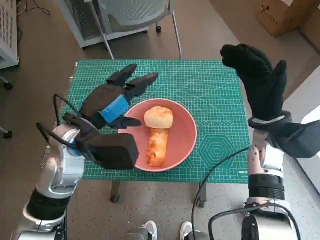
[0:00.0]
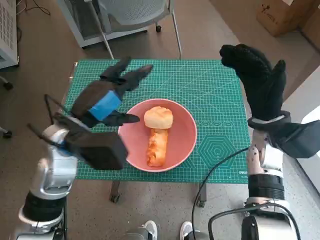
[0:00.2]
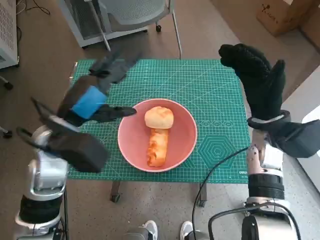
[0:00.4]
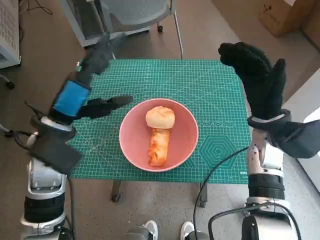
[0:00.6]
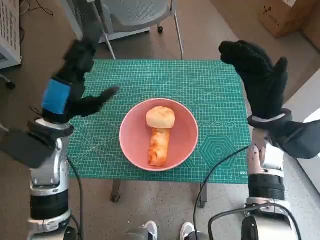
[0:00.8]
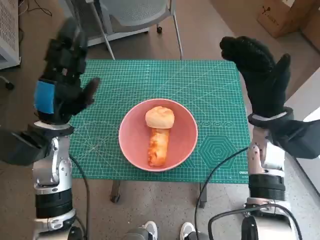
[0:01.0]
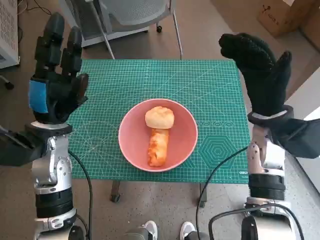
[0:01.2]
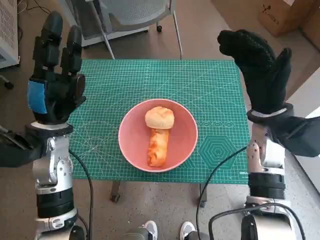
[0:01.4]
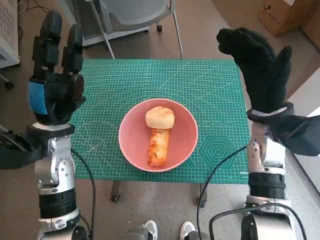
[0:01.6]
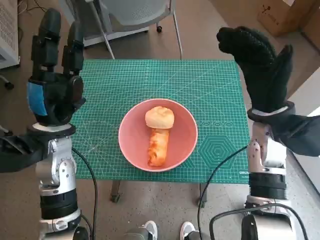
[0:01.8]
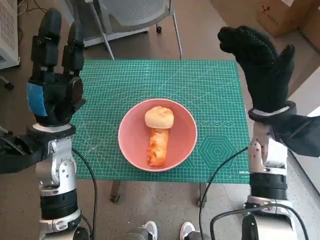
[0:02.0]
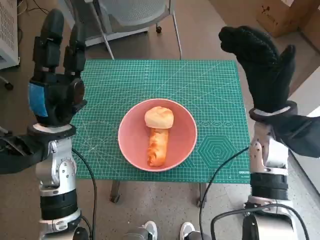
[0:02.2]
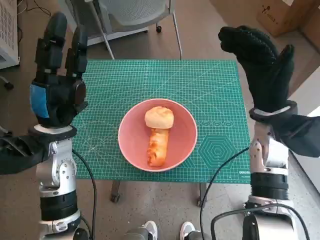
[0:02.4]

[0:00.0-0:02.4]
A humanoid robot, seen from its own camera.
0:00.0 to 0:01.2: The left hand travels to the left by roughly 5 cm.
0:01.2 to 0:02.4: The hands move only a little.

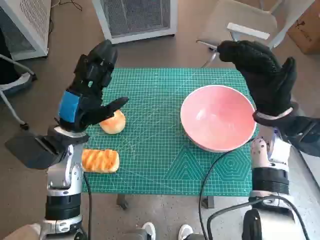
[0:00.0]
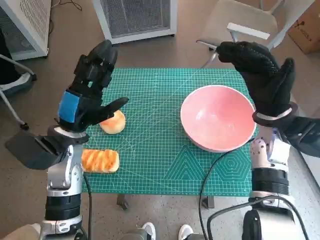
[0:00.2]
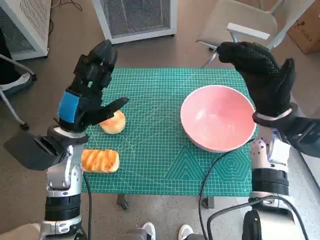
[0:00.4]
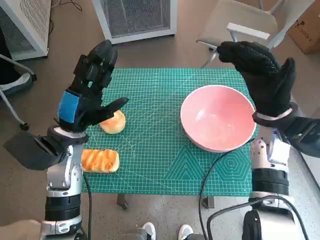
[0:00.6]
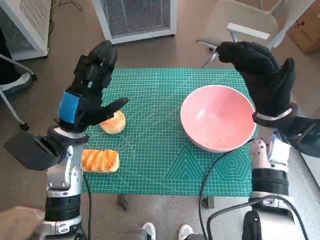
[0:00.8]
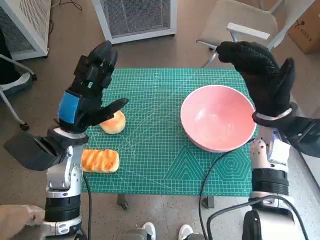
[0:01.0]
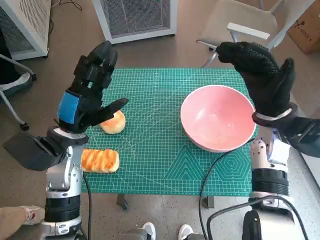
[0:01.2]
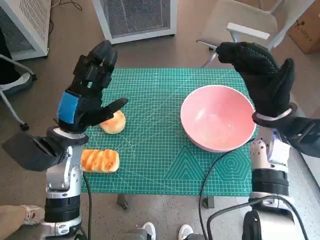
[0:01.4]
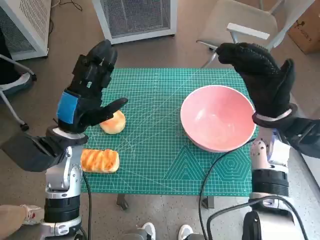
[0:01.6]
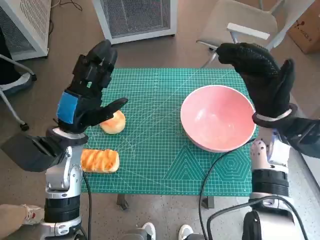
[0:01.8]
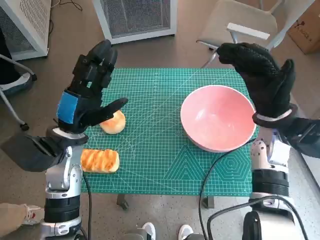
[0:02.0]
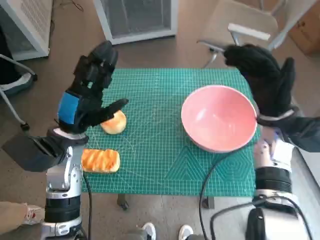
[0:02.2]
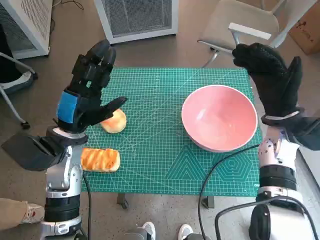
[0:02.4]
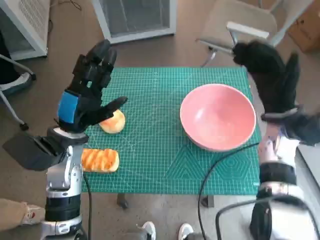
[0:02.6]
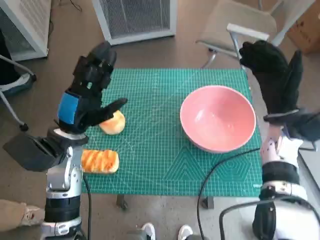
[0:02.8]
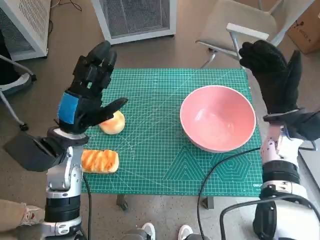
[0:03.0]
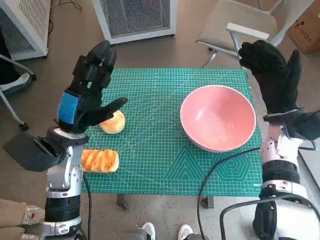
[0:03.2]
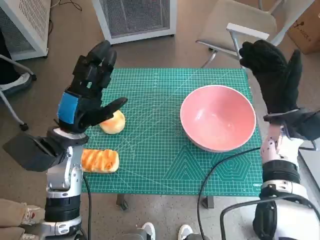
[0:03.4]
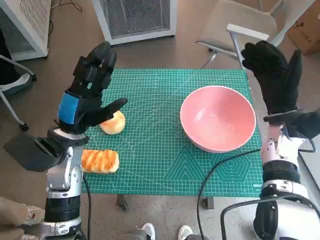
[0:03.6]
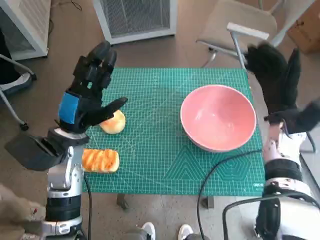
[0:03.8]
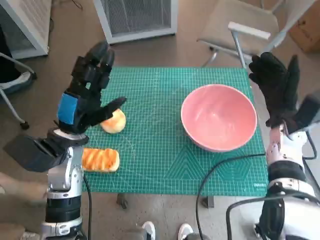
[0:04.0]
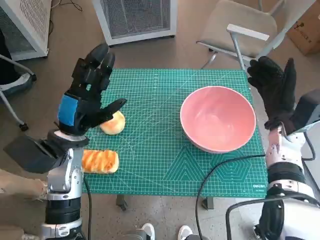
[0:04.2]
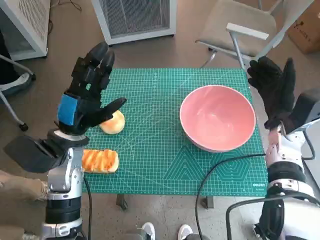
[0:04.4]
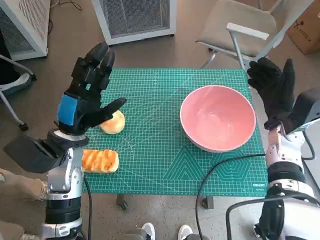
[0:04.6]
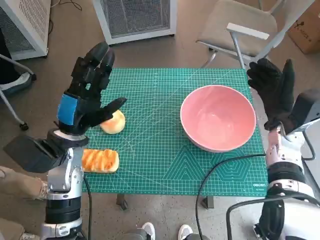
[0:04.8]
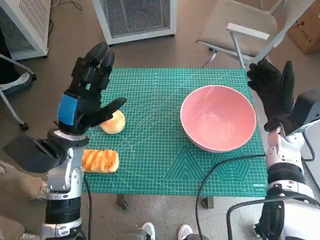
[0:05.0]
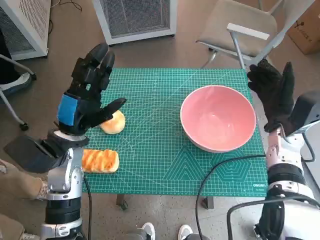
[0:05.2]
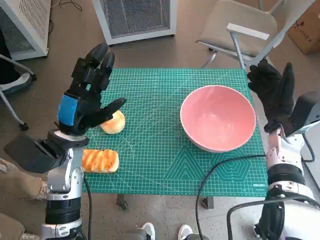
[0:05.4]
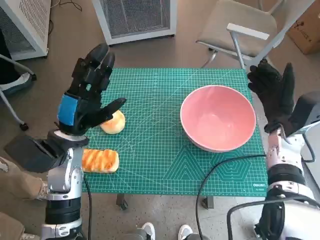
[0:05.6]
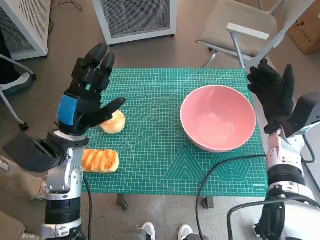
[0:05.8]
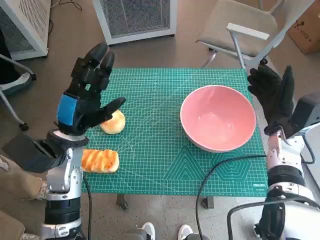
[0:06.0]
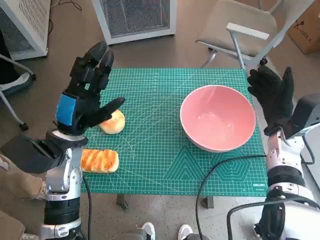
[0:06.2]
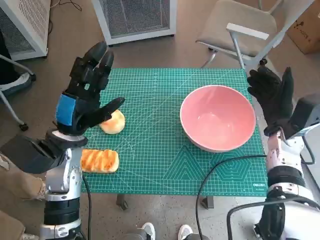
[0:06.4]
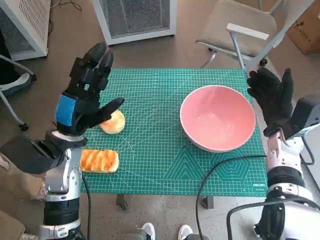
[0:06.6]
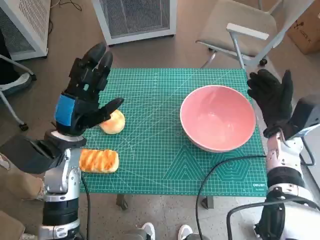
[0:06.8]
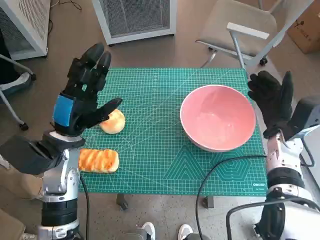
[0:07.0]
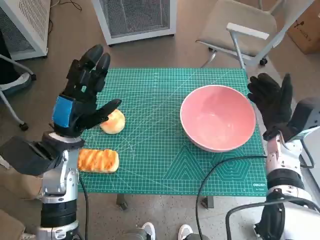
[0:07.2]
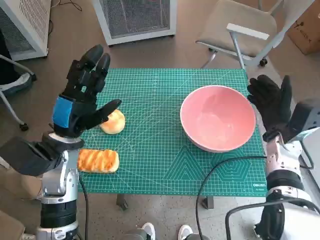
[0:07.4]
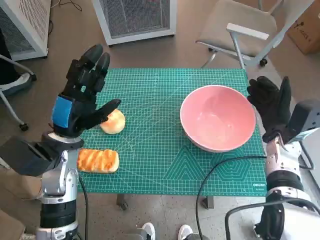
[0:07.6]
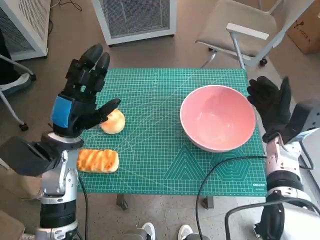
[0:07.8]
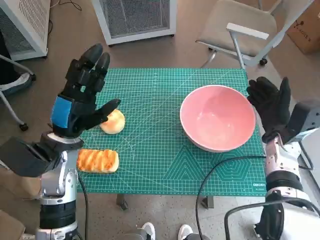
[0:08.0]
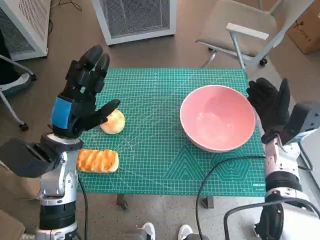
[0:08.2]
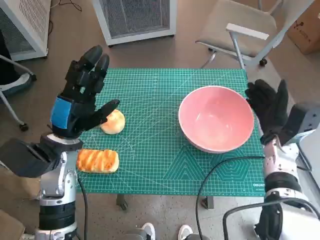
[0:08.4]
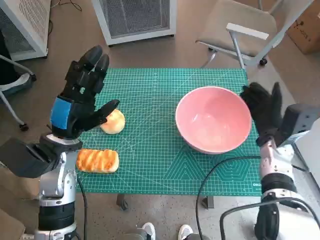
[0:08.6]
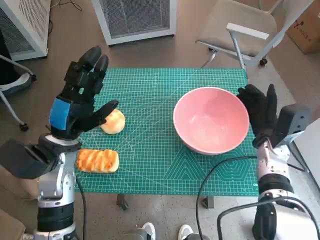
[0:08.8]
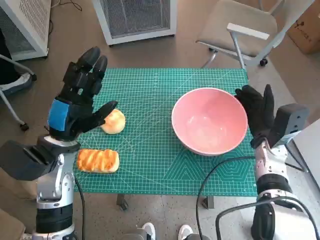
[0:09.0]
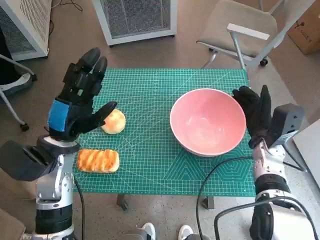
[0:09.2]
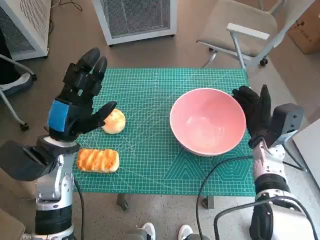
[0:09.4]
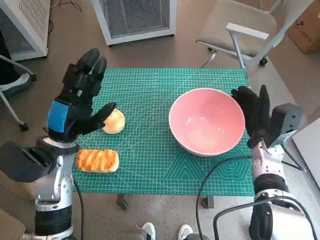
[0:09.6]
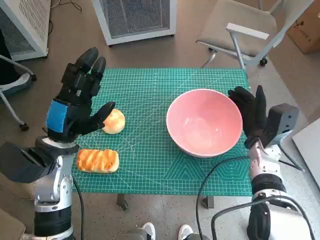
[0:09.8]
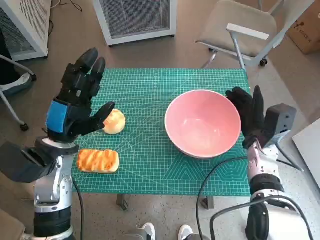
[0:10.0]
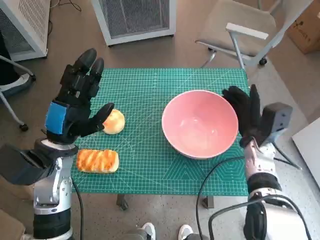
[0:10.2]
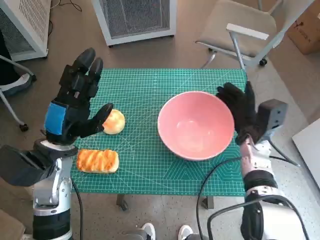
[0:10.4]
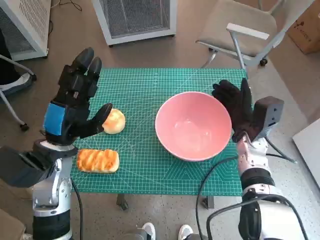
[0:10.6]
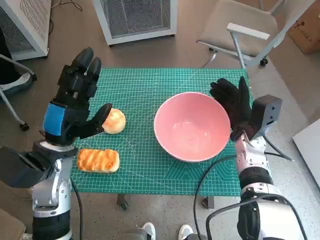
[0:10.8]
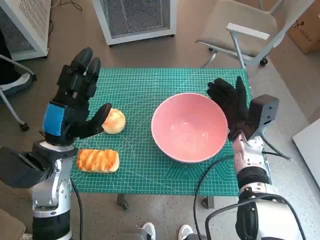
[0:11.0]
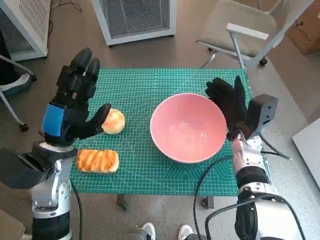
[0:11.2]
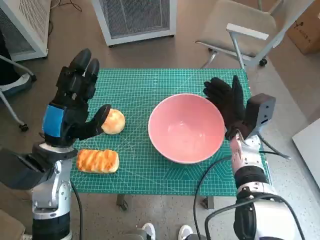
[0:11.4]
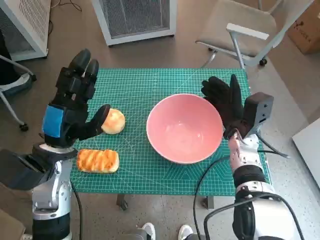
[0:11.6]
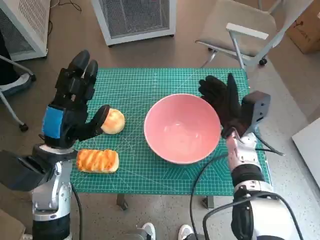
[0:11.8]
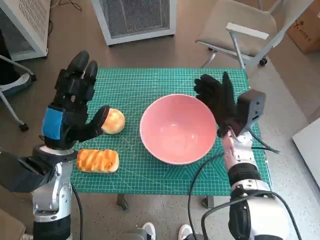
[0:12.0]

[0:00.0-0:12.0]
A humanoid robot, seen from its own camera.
0:04.4 to 0:06.0: Both hands stay about where they are.
0:06.0 to 0:10.4: The hands move only a little.

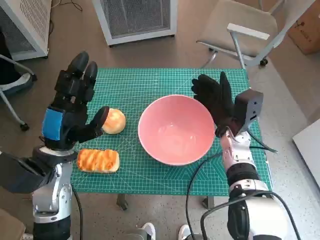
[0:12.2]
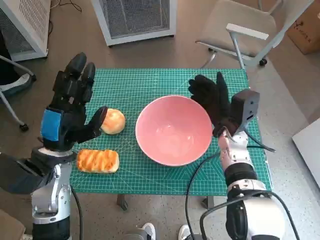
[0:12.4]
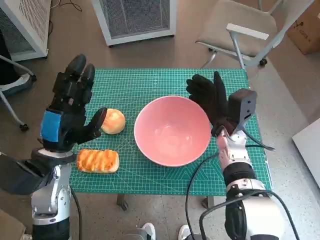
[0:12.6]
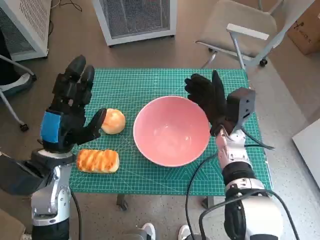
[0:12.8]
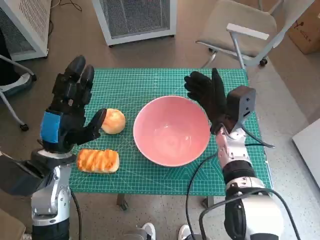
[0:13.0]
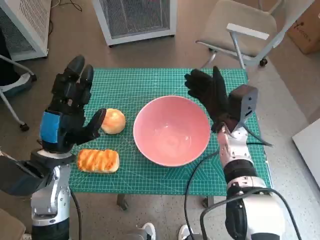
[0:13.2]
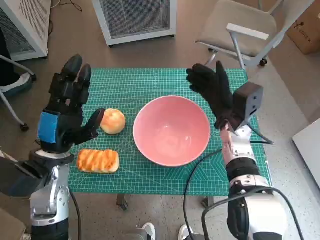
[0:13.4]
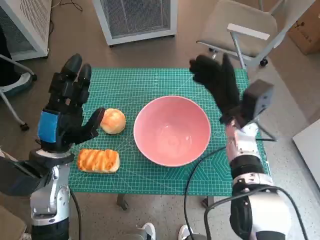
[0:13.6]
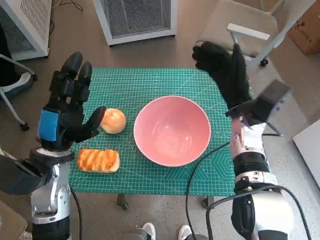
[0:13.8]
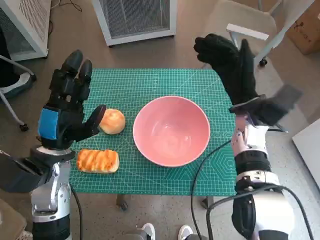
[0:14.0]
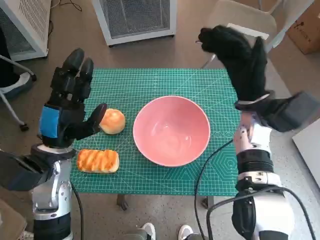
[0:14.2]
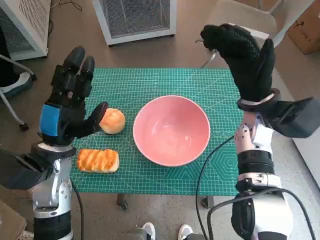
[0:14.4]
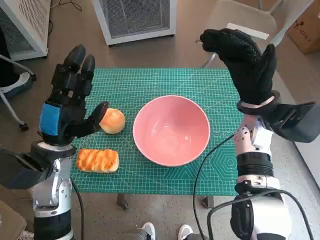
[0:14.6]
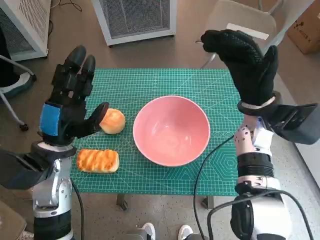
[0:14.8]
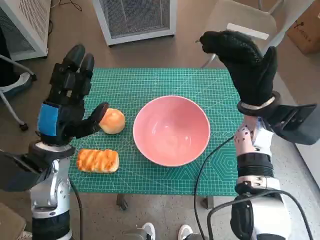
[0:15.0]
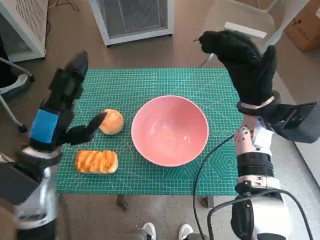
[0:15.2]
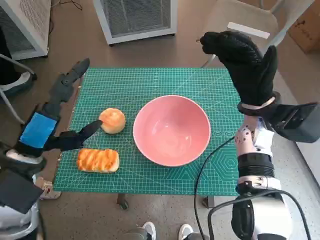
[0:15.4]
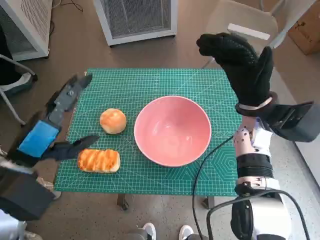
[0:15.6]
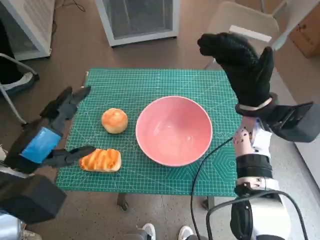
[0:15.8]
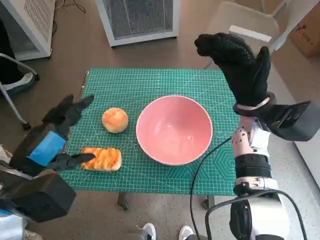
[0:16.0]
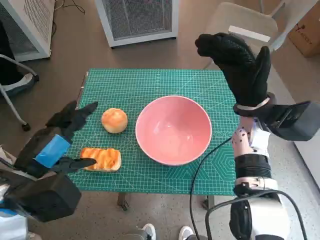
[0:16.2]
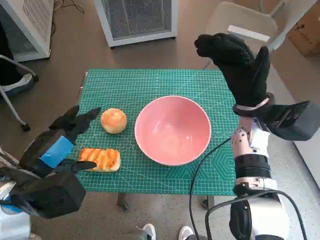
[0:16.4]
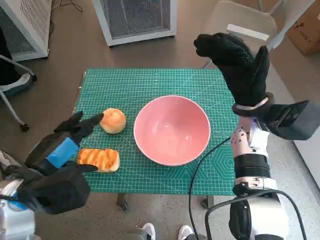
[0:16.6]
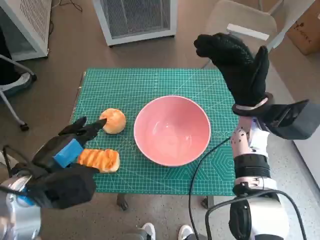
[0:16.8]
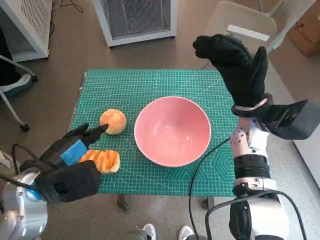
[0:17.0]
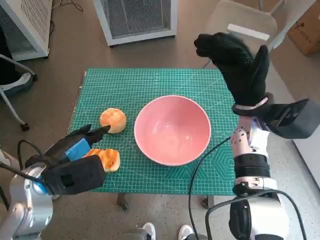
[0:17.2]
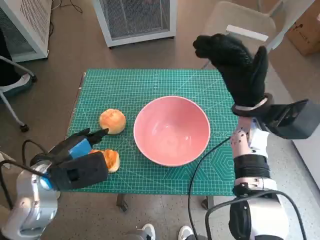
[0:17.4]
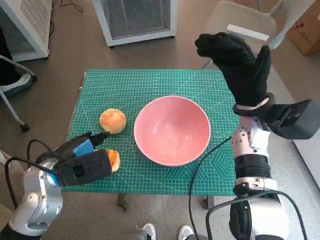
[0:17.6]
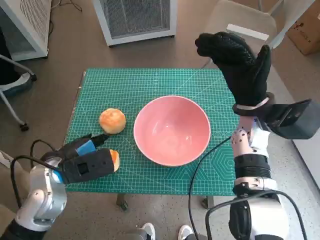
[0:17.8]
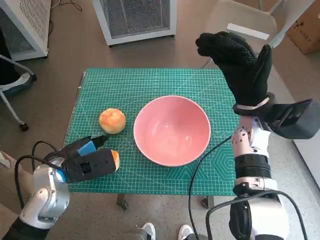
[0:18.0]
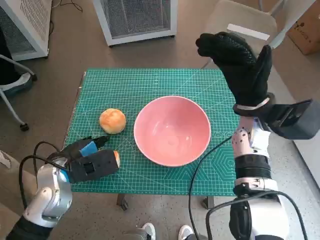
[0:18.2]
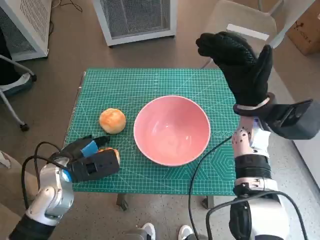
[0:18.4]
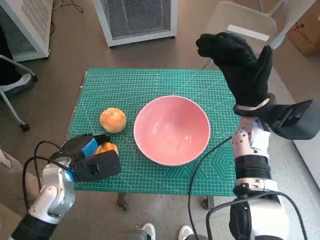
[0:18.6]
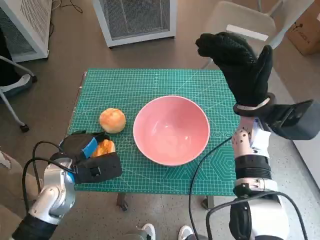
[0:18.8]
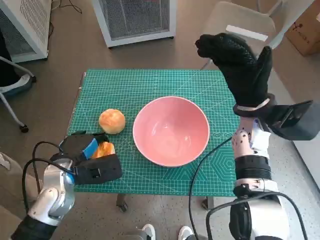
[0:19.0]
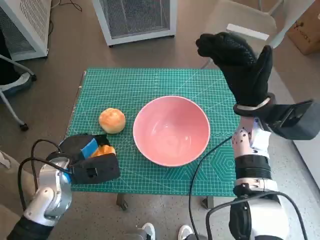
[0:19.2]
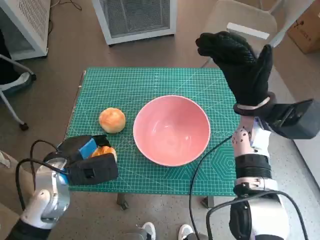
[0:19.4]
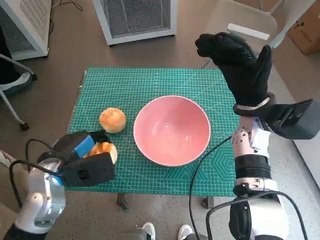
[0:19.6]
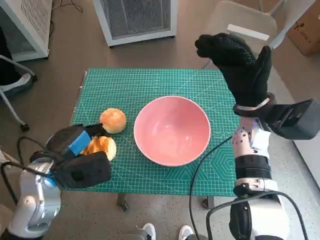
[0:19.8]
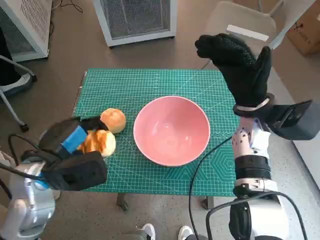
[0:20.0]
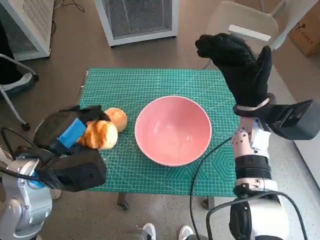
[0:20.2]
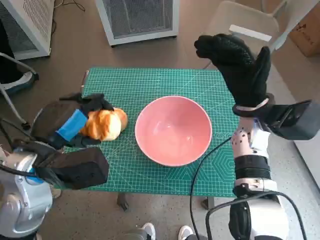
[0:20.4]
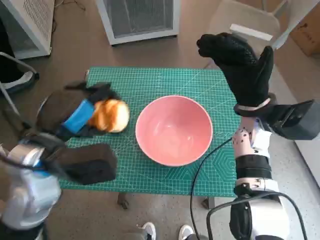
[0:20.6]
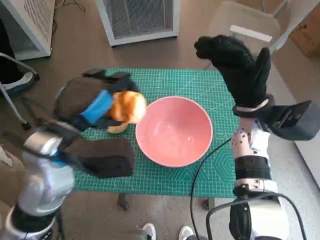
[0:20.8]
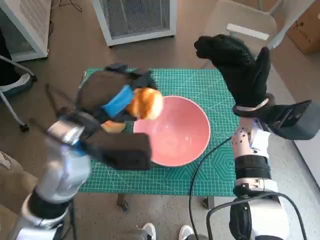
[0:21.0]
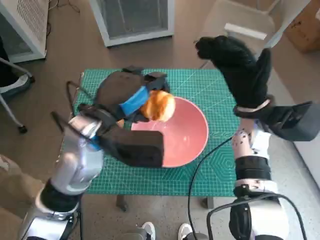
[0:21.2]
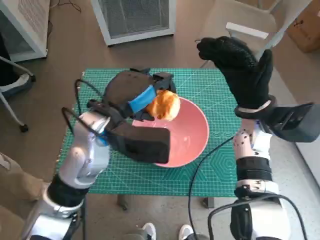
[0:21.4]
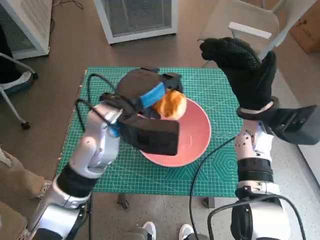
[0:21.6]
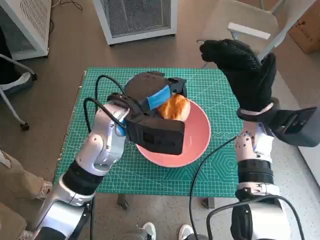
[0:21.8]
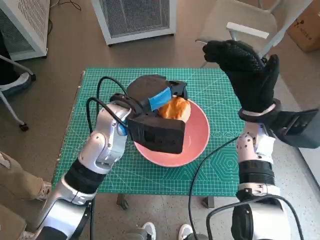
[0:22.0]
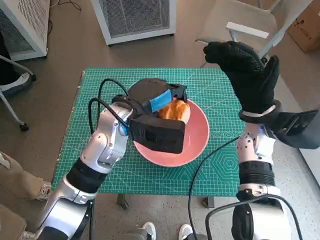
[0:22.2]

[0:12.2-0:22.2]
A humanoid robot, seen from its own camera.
Step, 0:13.4 to 0:19.0: Grasp the long bread with left hand.
0:12.2 to 0:13.6: The hands stay close to where they were, moving slightly.
0:13.6 to 0:15.0: The right hand travels upward by about 5 cm.
0:15.0 to 0:16.4: The left hand shifts roughly 5 cm backward.
0:16.4 to 0:18.0: The left hand travels downward and forward by about 10 cm.
0:18.0 to 0:19.4: There are only small adjustments of the hands.
0:19.4 to 0:20.8: The left hand goes some 15 cm upward and to the right.
0:20.8 to 0:22.2: The left hand shifts about 10 cm forward and to the right.
